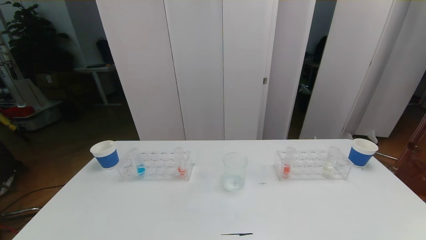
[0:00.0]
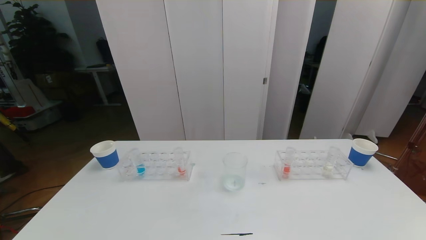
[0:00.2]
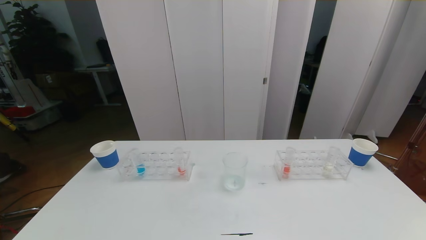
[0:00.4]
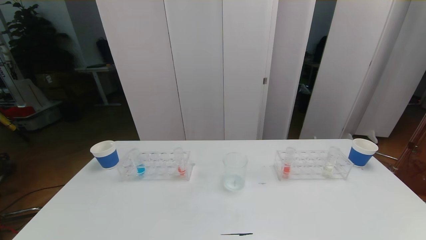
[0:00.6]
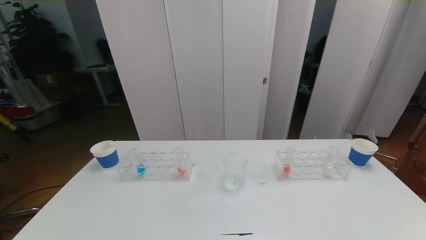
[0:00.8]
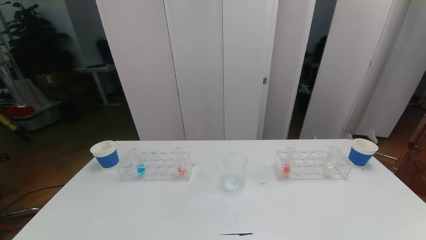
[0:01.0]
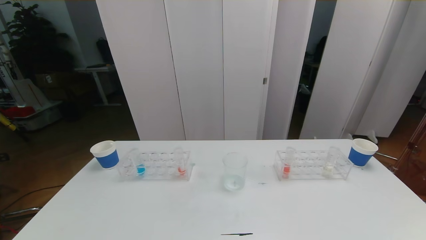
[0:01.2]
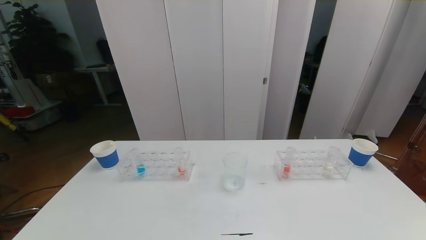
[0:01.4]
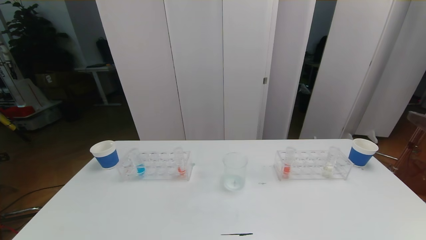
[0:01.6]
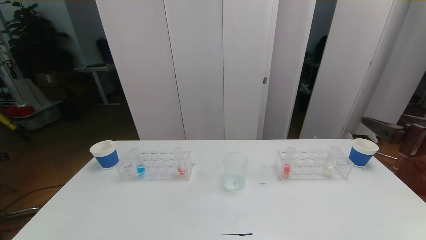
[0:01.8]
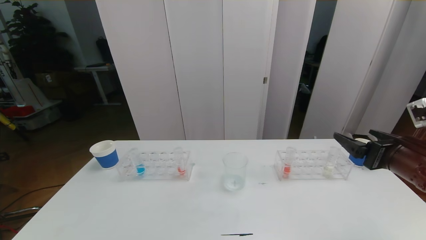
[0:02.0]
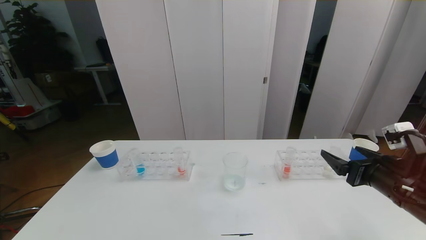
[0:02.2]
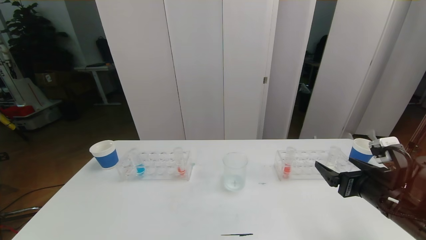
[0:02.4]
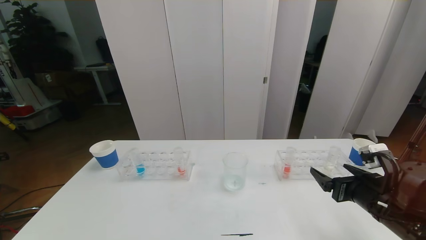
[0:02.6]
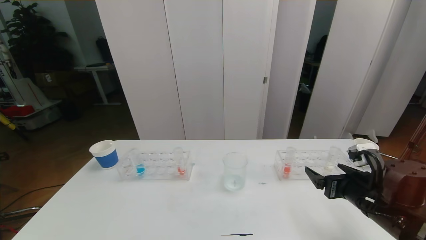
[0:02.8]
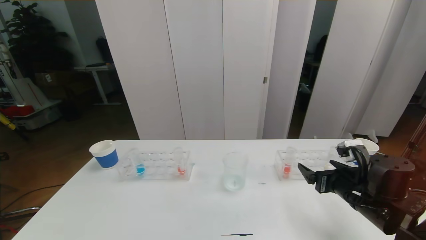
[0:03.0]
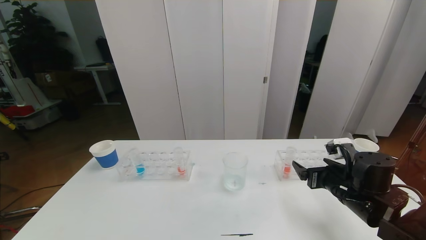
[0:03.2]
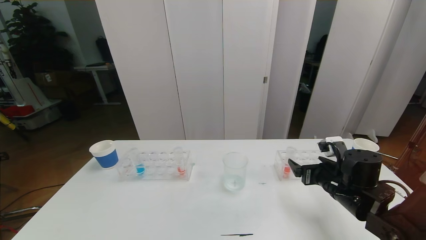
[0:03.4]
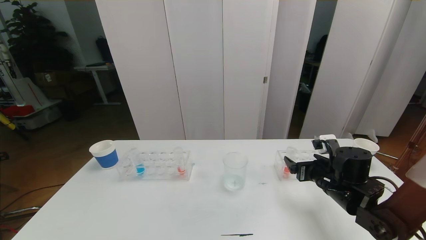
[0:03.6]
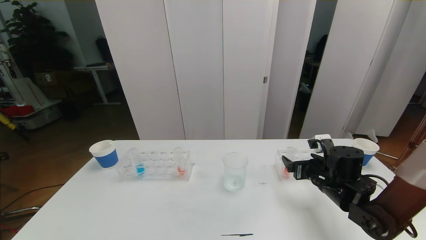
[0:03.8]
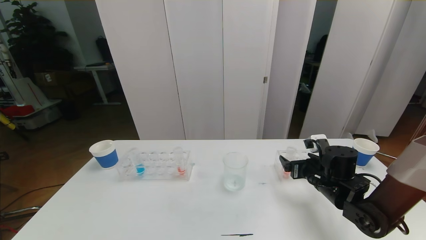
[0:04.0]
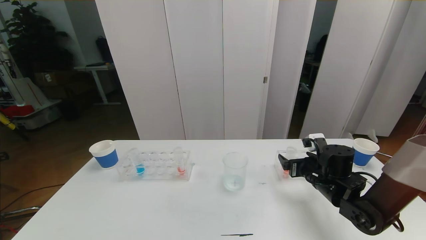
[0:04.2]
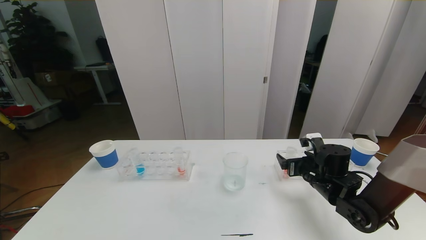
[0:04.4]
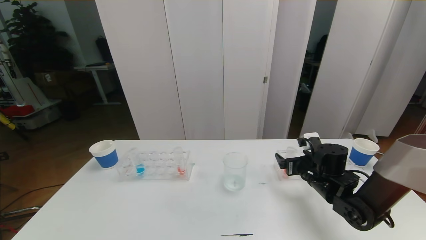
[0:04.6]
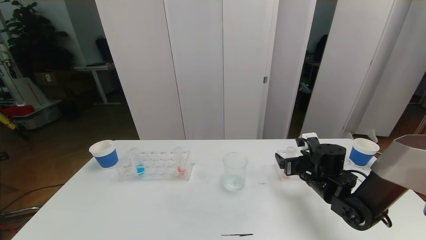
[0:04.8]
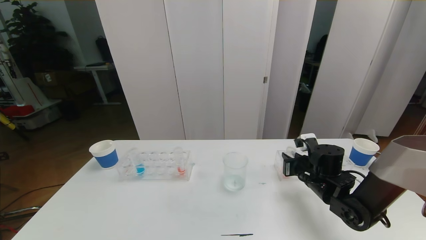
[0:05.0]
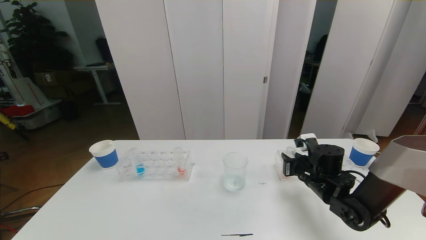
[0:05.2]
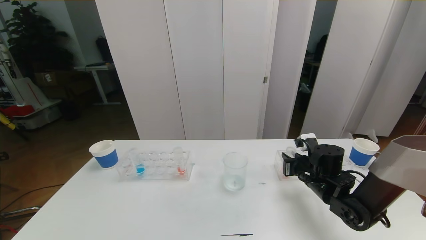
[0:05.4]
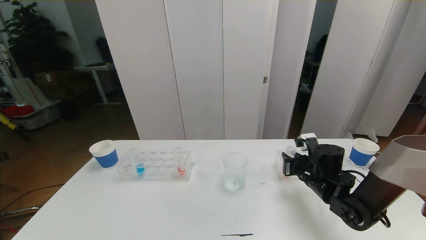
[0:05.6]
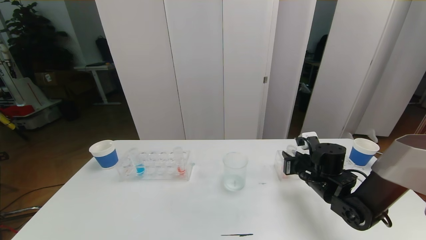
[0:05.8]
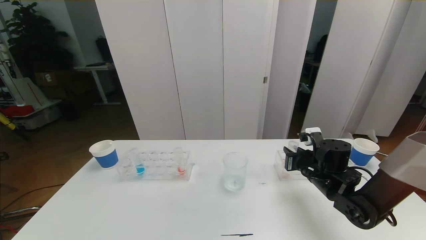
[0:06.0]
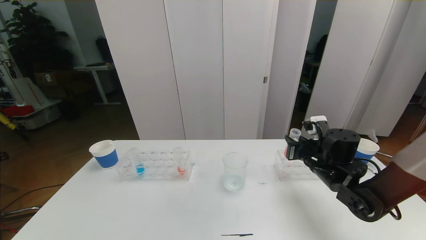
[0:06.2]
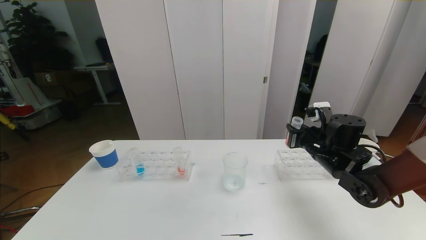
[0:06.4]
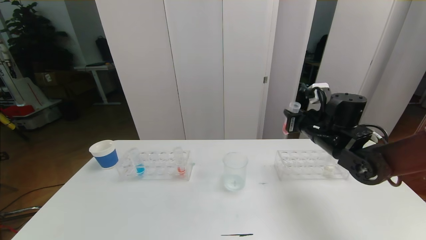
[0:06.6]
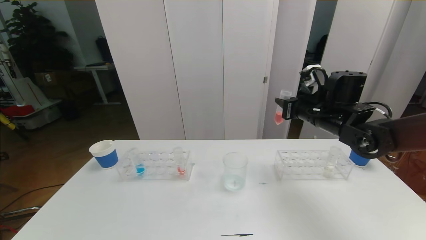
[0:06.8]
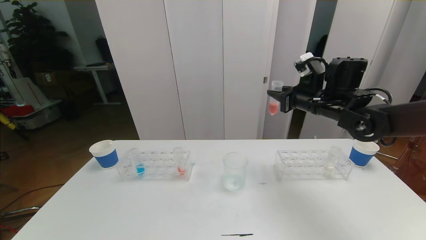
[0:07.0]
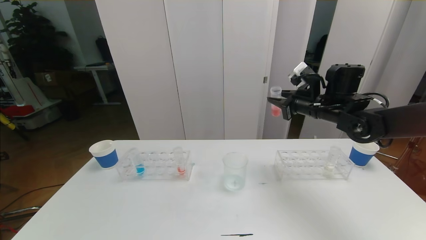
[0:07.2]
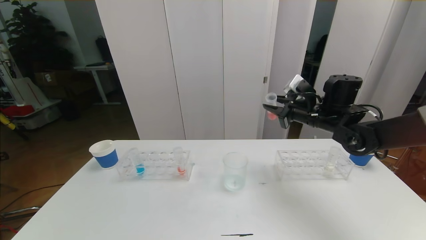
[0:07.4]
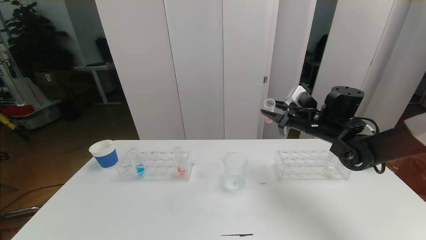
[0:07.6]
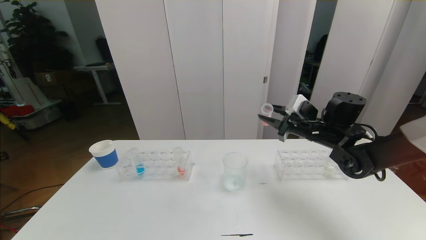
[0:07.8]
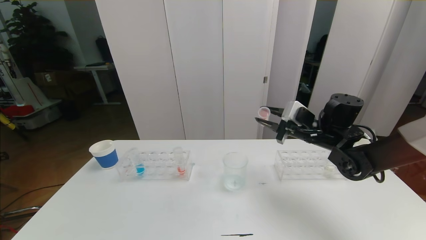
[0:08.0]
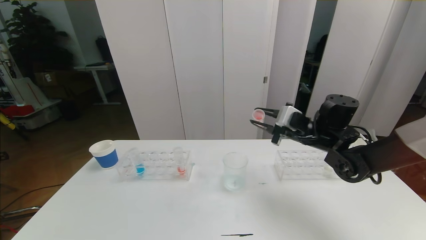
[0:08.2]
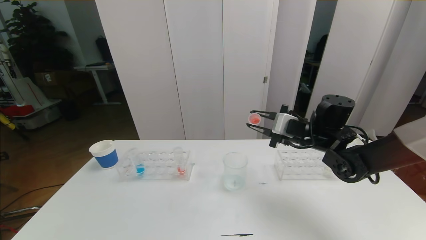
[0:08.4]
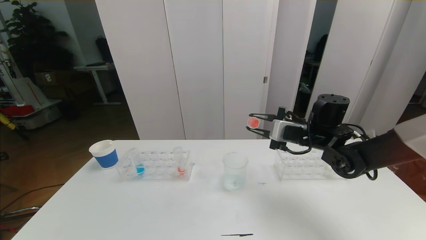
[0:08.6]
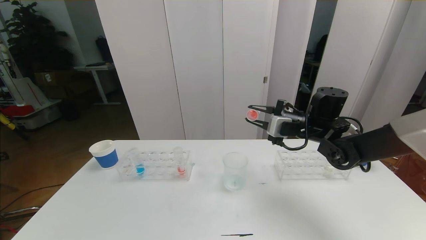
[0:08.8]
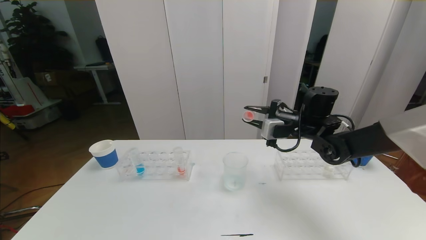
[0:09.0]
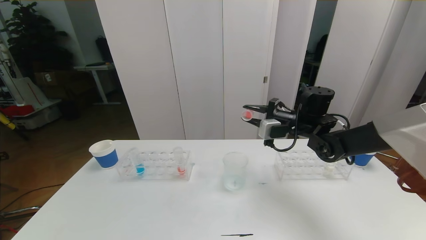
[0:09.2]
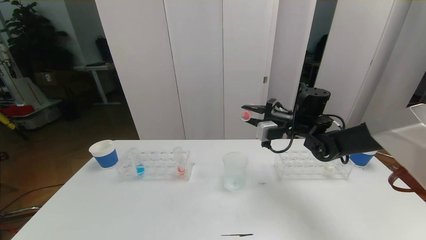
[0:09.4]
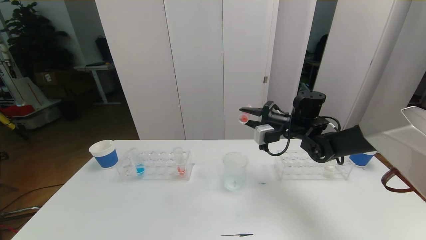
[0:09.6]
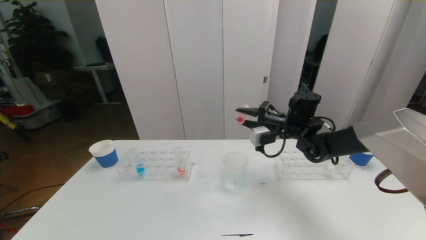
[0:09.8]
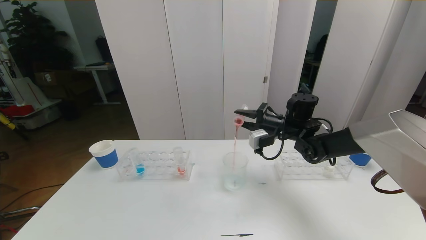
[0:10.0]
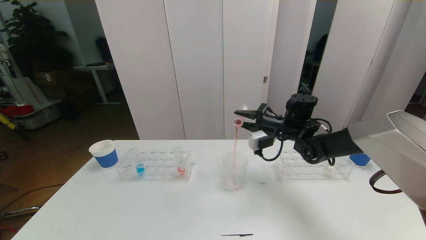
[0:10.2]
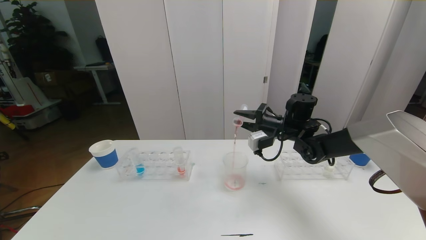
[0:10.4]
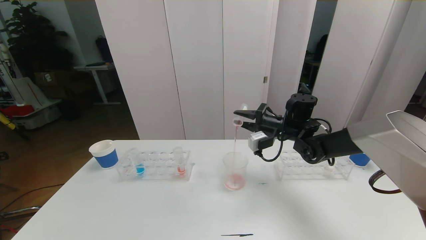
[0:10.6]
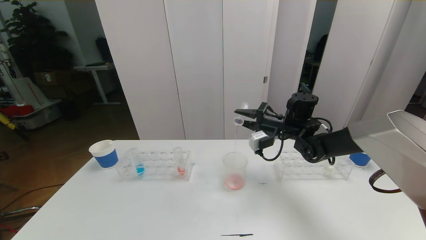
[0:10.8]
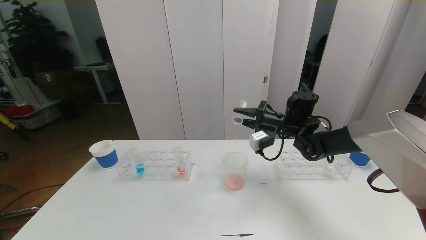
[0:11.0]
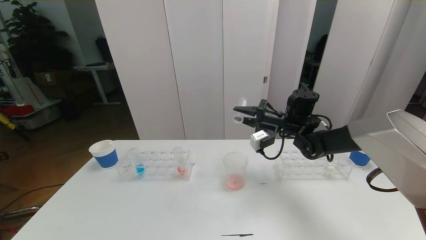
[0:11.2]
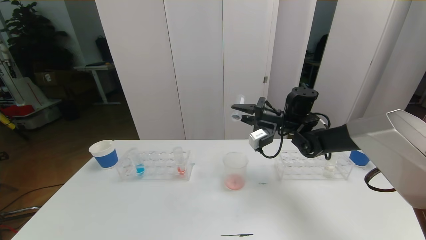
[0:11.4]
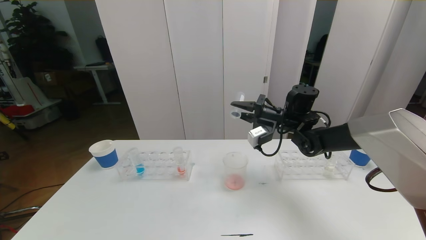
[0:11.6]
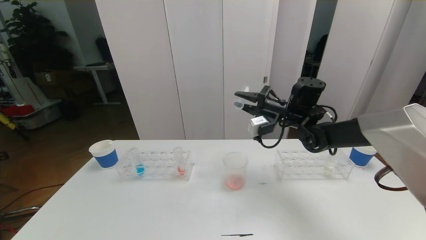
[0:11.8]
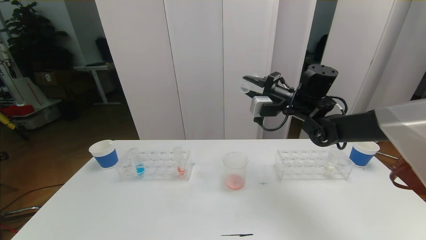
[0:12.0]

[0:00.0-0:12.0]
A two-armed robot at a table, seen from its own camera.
Task of the whole recording: pick up the test tube with red pigment the test tube with blue pigment and the test tube with white pigment by grippers and pour them into the beaker.
0:01.6 to 0:03.0: The right gripper goes some 20 cm downward and forward.
0:03.0 to 0:04.4: The right gripper travels forward by about 10 cm.
0:04.4 to 0:06.0: The right gripper closes its fingers.
0:06.0 to 0:07.6: The right gripper heads upward and forward, covering approximately 10 cm.
0:09.0 to 0:10.4: The grippers move only a little.
0:10.4 to 0:12.0: The right gripper is displaced upward by some 10 cm.

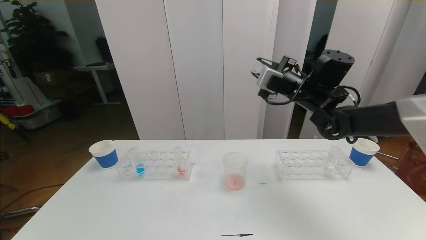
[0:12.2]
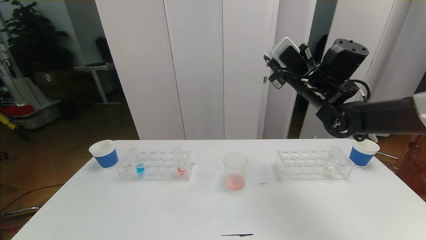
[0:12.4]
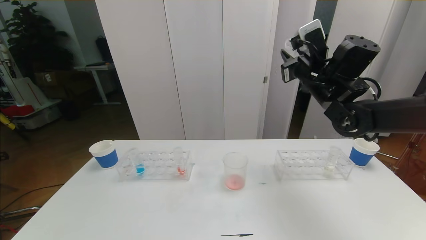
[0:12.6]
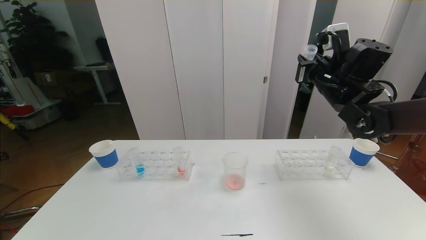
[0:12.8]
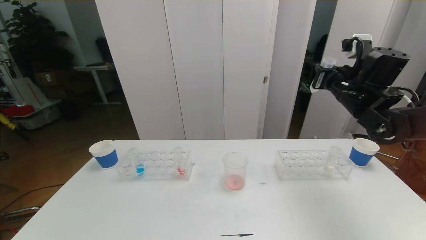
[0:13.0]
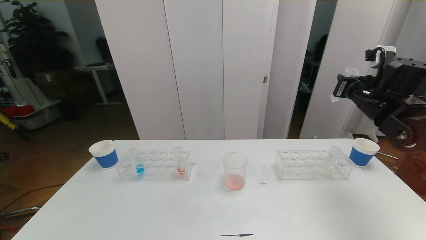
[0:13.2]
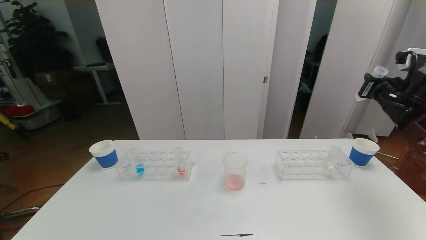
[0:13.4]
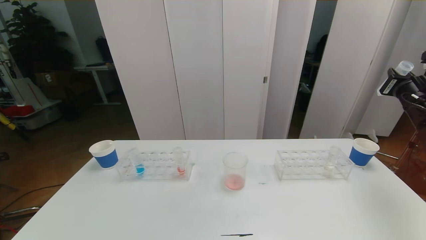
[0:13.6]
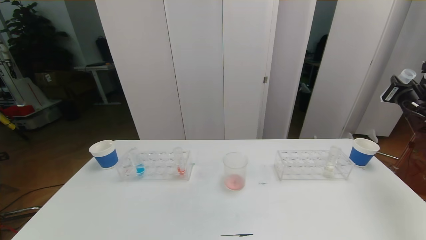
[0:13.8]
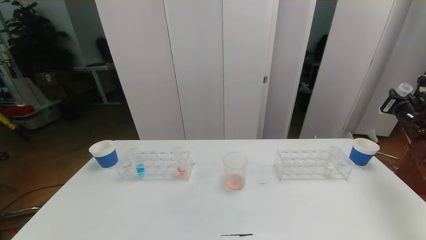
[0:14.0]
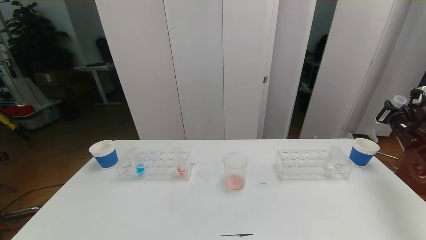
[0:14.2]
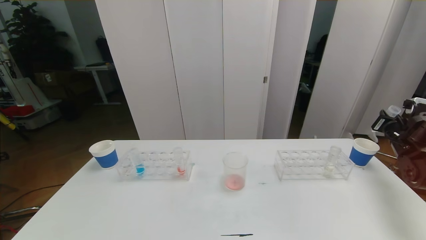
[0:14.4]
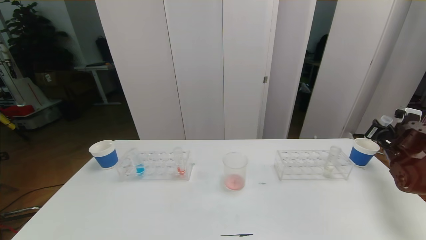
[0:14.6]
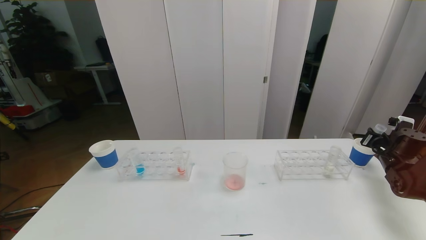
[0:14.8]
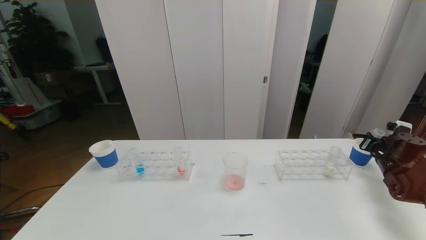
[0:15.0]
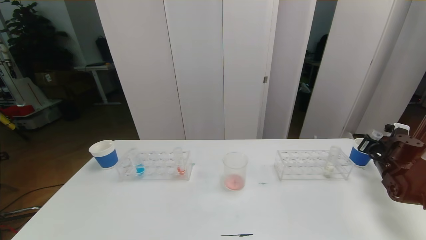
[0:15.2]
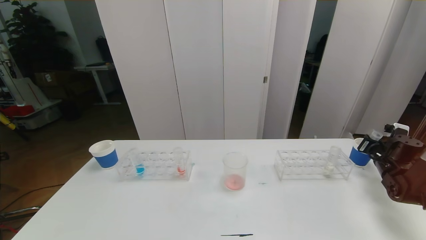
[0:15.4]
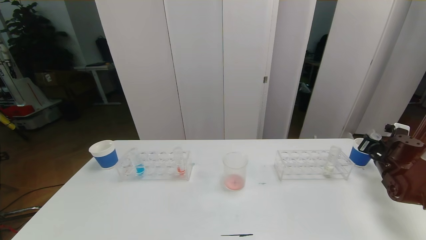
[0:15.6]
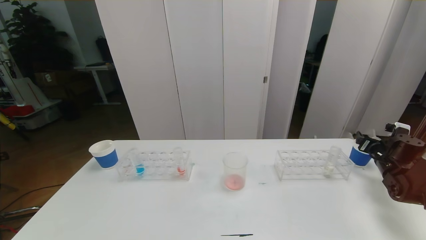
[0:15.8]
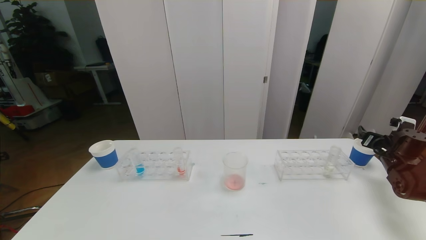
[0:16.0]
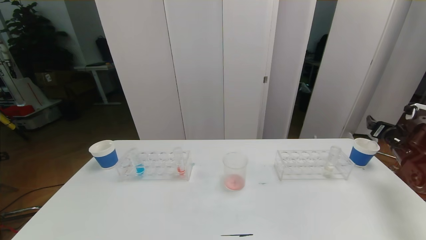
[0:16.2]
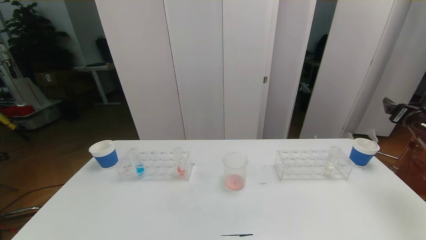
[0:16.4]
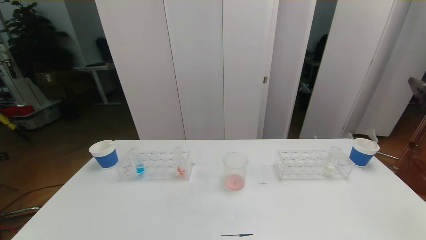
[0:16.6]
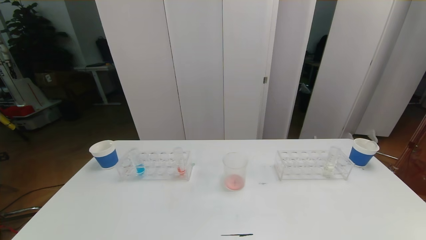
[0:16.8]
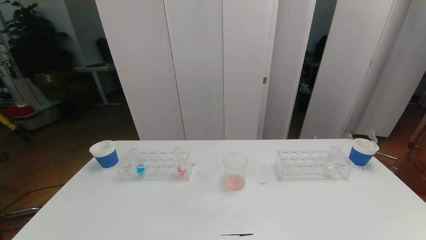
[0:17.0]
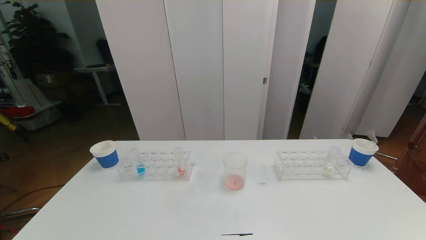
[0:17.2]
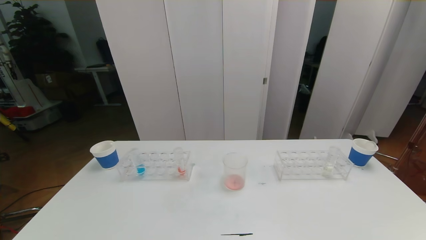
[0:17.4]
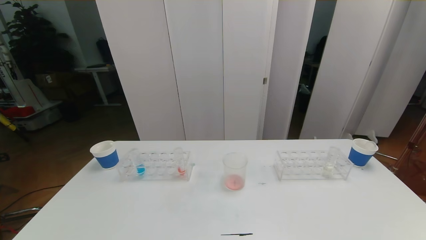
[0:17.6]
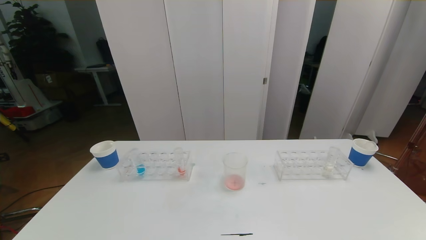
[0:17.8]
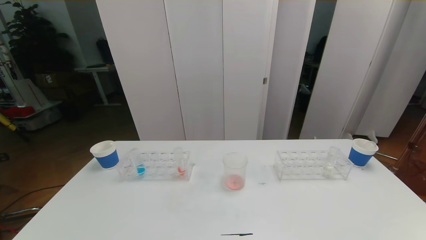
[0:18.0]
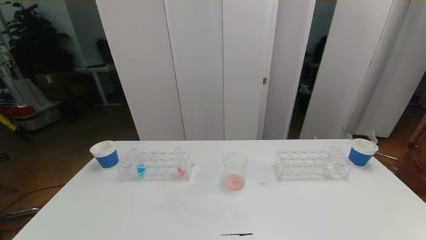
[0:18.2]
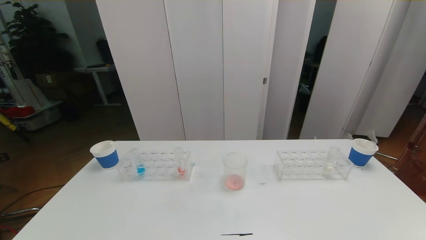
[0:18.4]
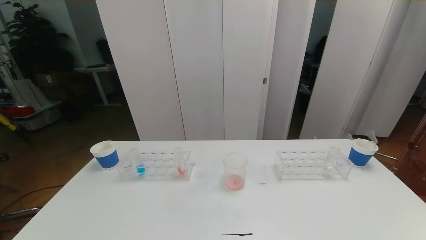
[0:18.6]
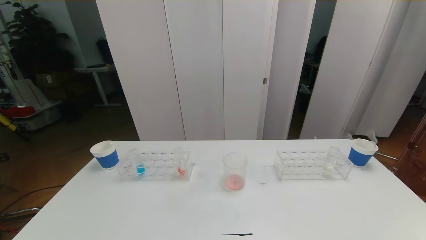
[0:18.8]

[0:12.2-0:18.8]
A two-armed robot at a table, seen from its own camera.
Task of the whole recording: pick up the test tube with red pigment the test tube with blue pigment and the test tube with white pigment by grippers and pour them into the beaker.
0:12.2 to 0:13.8: The right gripper moves to the right, approximately 25 cm.
0:13.8 to 0:15.4: The right gripper goes roughly 15 cm downward.
0:15.4 to 0:17.2: The right gripper moves backward and upward, about 40 cm, and opens up.
